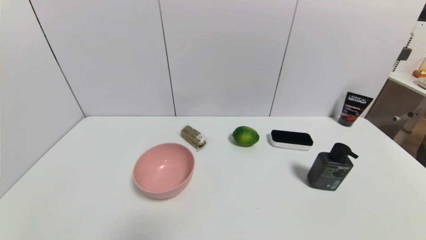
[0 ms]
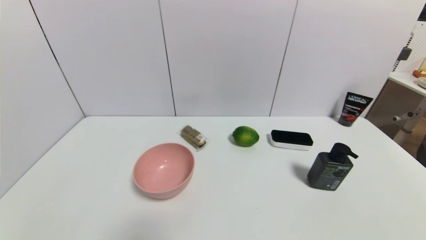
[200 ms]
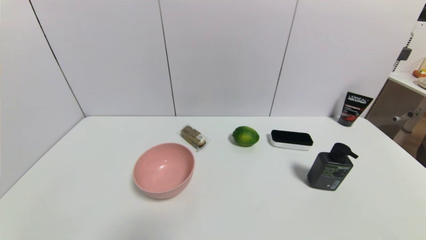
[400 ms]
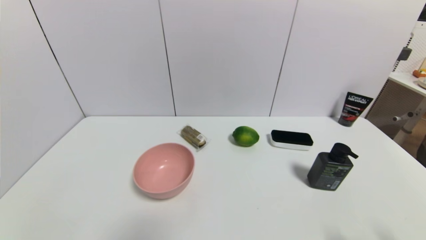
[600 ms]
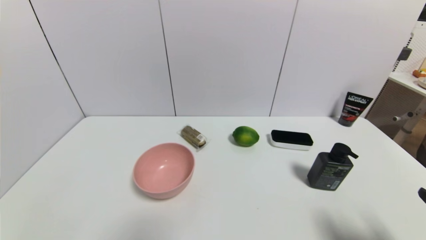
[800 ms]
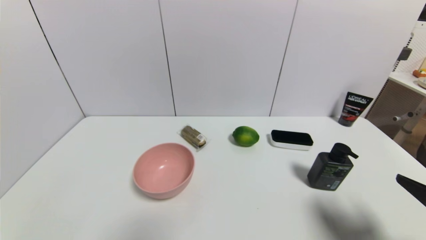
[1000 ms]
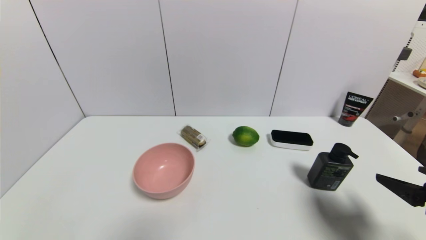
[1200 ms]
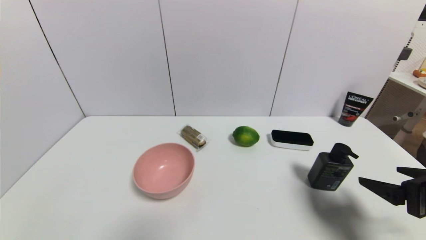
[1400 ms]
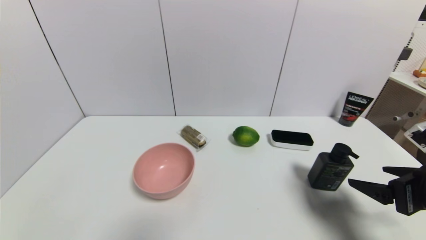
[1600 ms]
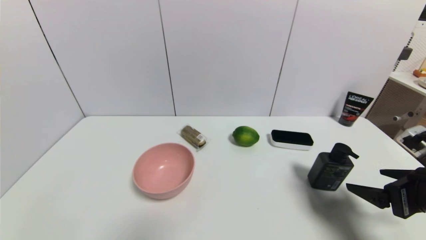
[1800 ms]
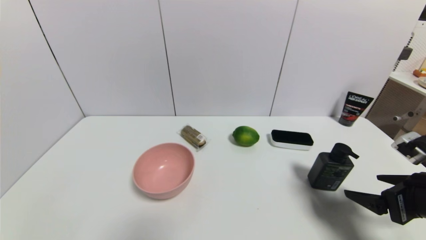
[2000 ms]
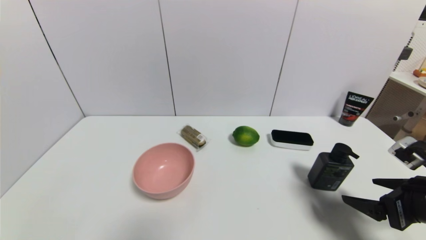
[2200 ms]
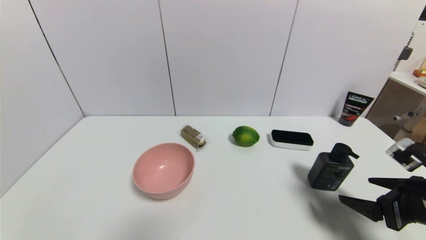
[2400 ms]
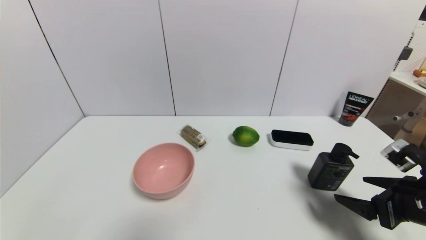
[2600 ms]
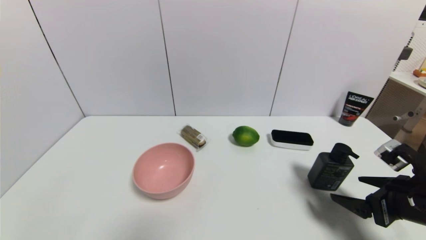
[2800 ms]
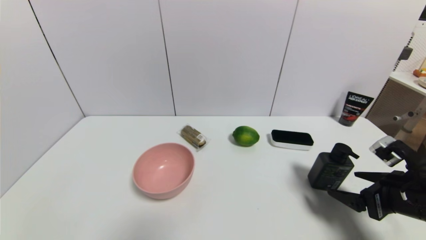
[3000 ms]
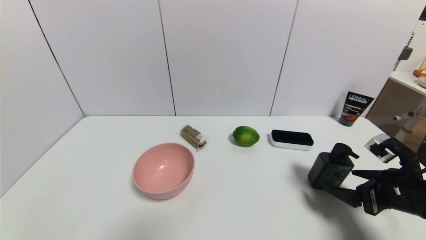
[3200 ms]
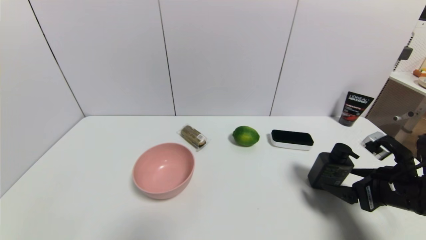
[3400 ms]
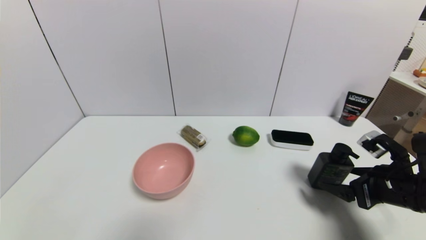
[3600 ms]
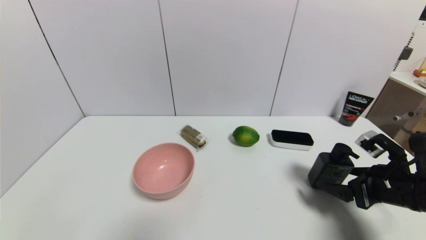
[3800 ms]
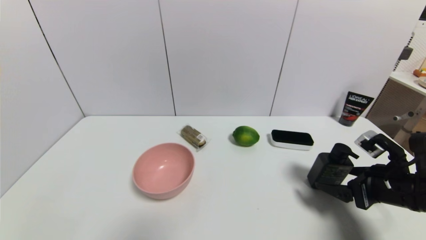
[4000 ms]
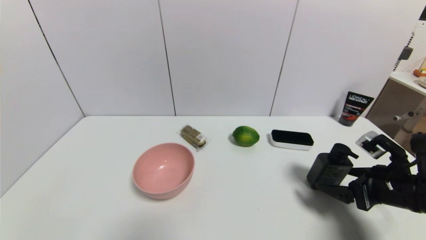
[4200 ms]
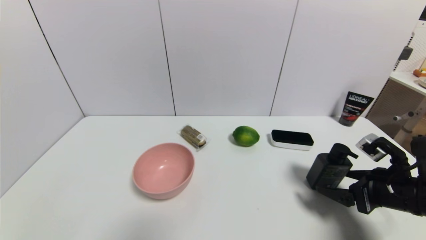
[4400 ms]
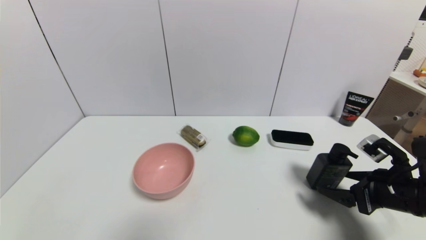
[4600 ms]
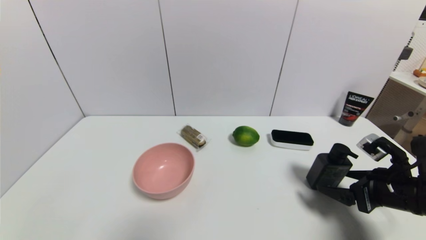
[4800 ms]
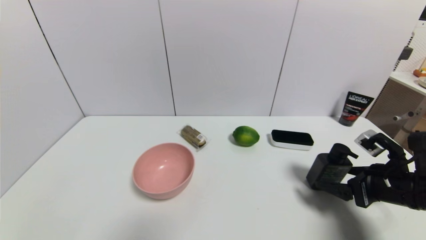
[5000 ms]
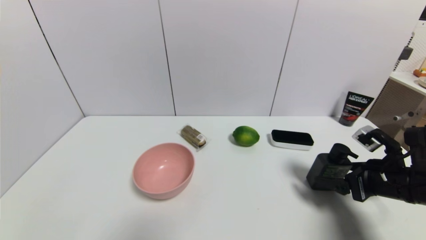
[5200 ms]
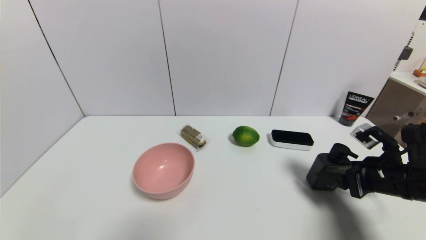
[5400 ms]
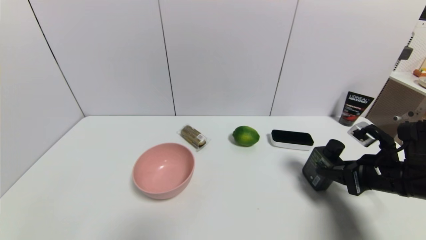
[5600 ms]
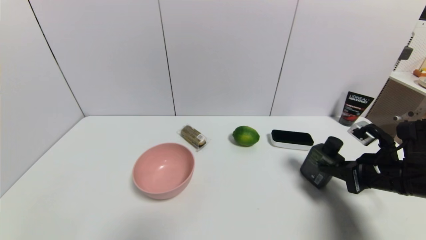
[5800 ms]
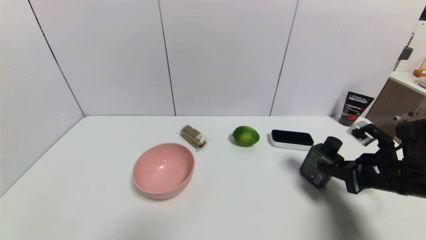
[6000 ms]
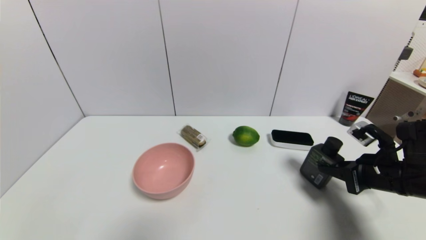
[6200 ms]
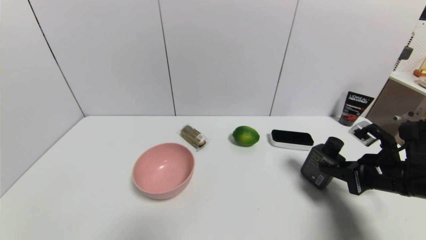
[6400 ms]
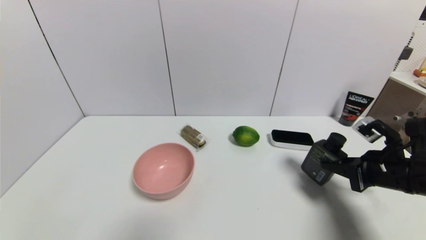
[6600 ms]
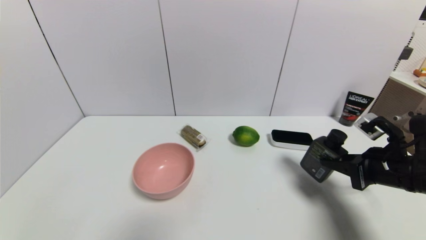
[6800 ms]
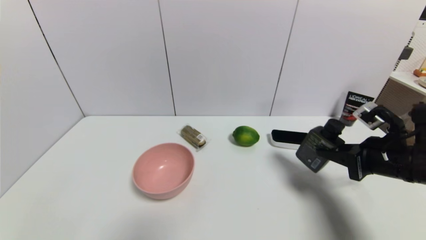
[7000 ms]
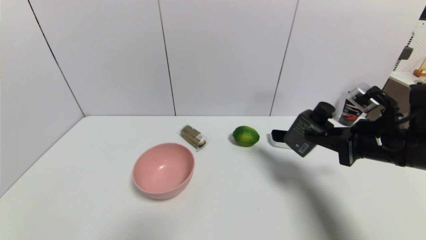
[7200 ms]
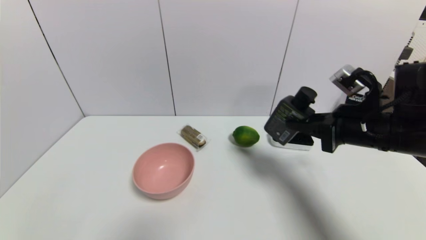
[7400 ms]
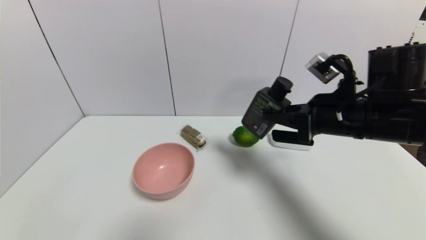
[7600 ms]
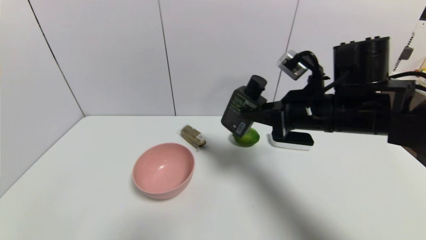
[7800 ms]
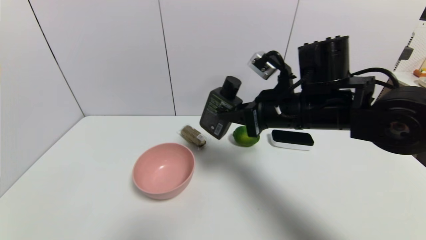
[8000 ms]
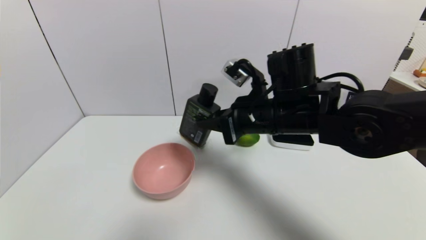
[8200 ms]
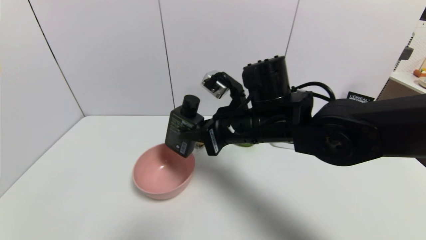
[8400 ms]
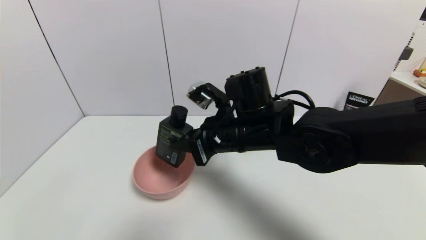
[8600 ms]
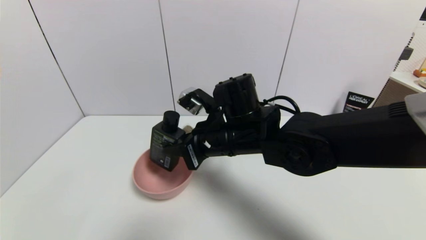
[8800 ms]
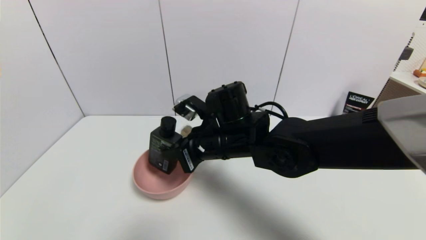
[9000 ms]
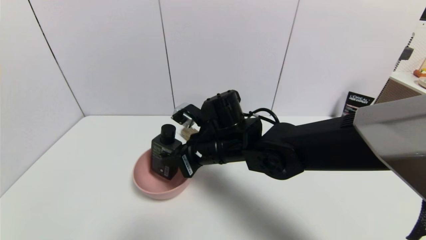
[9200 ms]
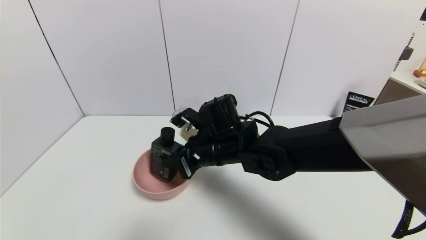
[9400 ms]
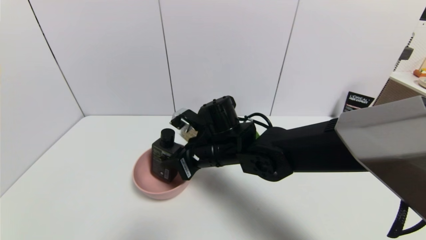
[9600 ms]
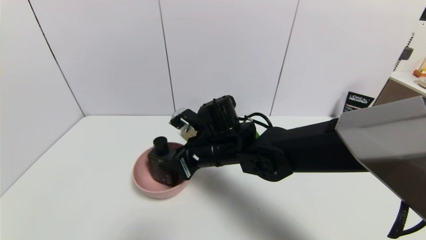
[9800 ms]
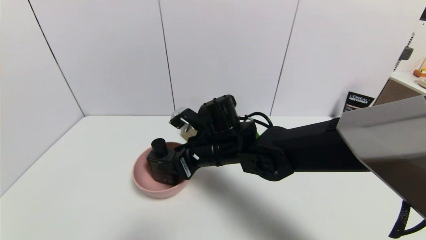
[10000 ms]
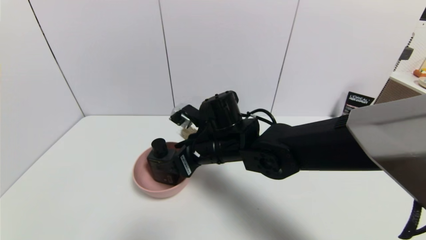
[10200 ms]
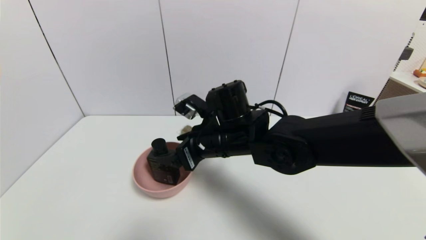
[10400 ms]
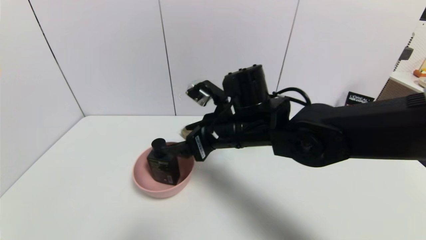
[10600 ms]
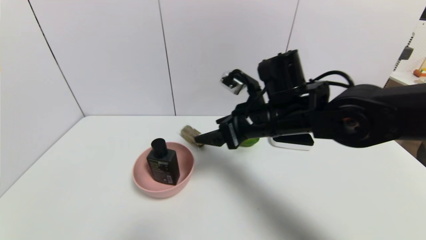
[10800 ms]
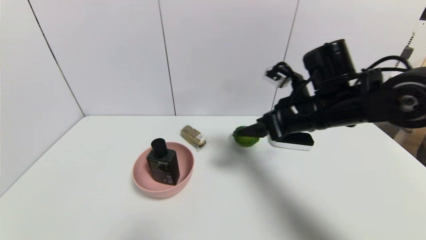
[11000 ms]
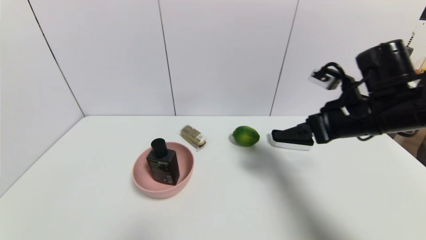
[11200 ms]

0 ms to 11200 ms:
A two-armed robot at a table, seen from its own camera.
Task of the whole recording: use a gripper to pick the target object and place on the pink bowl.
Step, 0 ms to 5800 ms: Grasp the hard facial cleanser with the right gripper.
Step, 6000 ms to 10400 ms: Place the hard facial cleanser on the pink bowl with the right gripper.
0 ms to 1600 ms: The right gripper goes some 20 cm forward and upward.
1600 ms to 3200 ms: The right gripper ends up about 5 cm from where it was.
3200 ms to 4800 ms: The grippers stay close to where they were, moving slightly.
4800 ms to 6400 ms: The right gripper closes.
6400 ms to 8000 ms: The right gripper goes approximately 20 cm to the left and upward.
8000 ms to 9600 ms: The right gripper goes roughly 15 cm to the left and downward.
9600 ms to 11200 ms: The right gripper shifts some 25 cm to the right, and opens up.

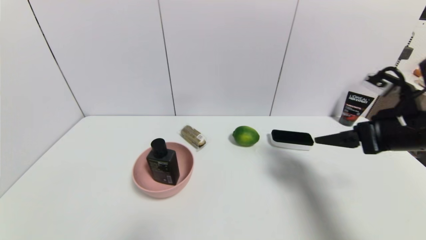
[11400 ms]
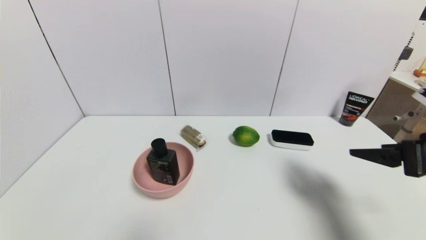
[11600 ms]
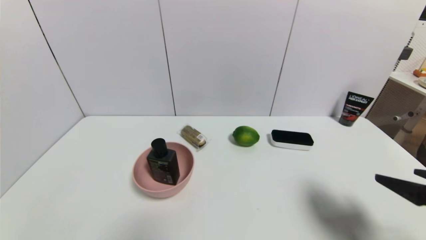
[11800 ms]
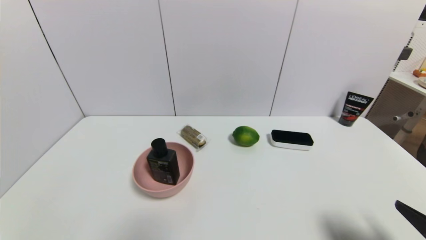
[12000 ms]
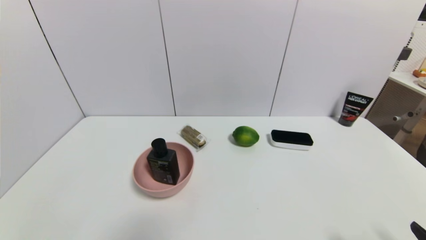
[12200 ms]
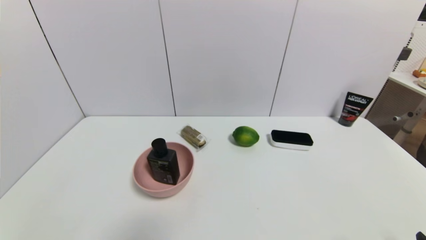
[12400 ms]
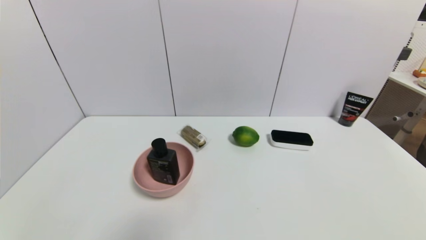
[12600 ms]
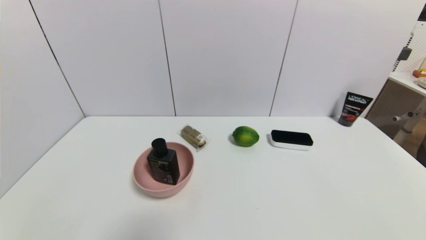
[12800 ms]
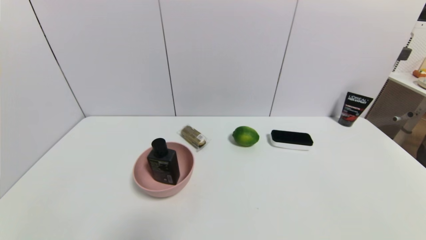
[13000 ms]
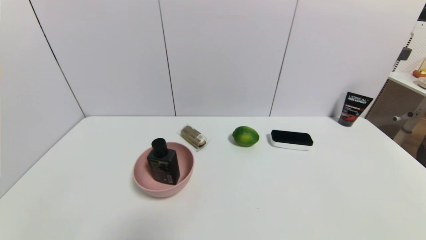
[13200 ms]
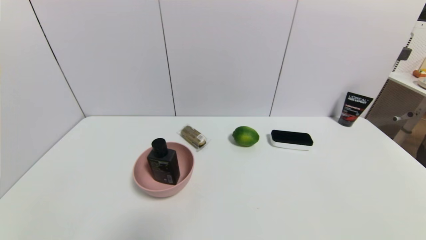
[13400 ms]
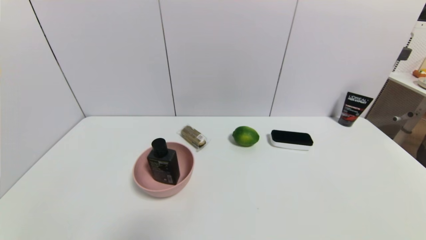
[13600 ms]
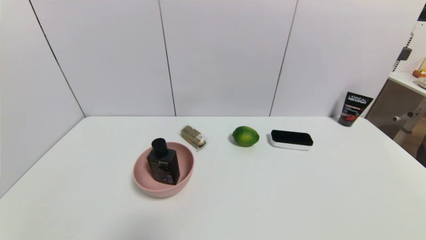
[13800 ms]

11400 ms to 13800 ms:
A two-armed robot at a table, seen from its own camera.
Task of the whole recording: use a gripper to pick the target object and place on the pink bowl.
11400 ms to 12600 ms: The right gripper goes approximately 30 cm backward and downward.
